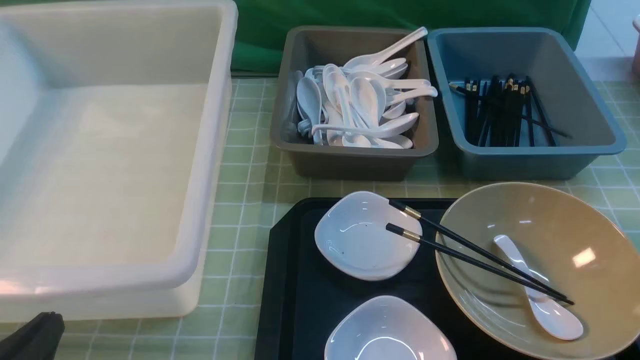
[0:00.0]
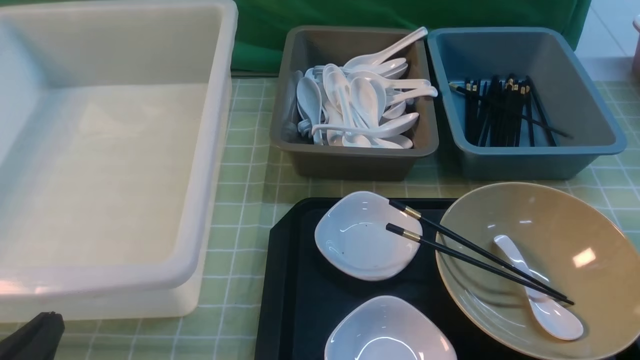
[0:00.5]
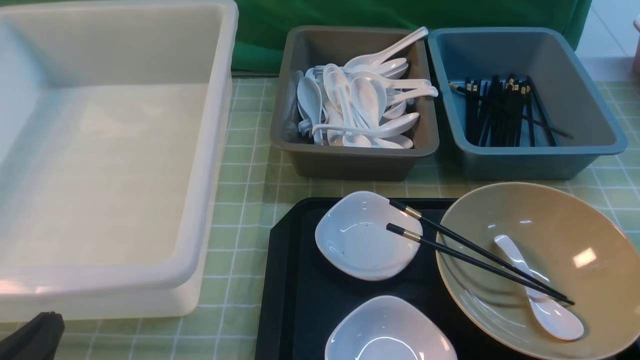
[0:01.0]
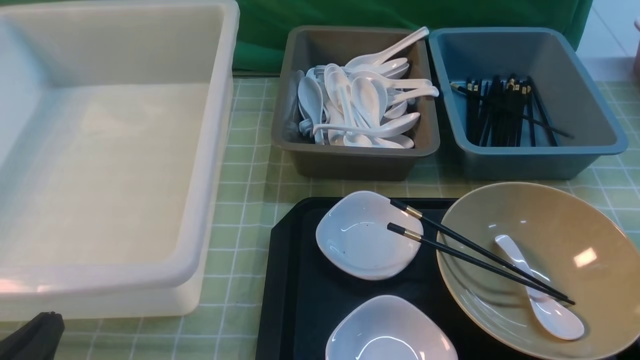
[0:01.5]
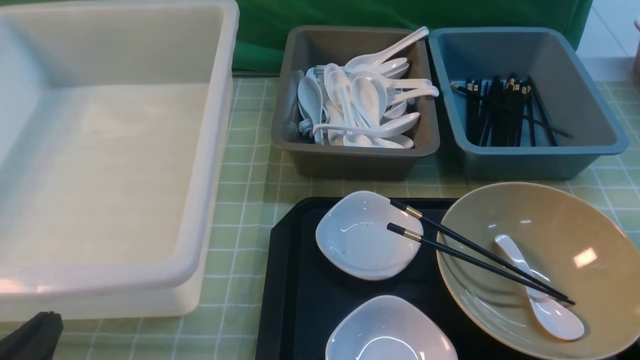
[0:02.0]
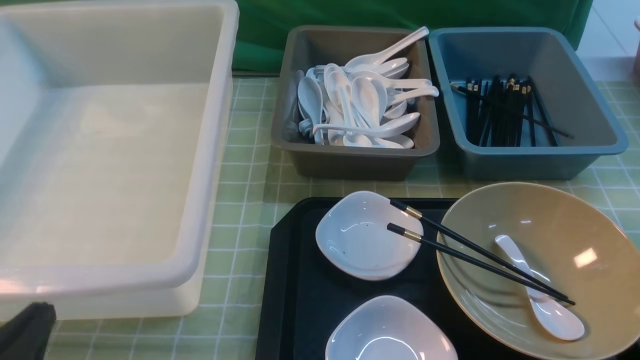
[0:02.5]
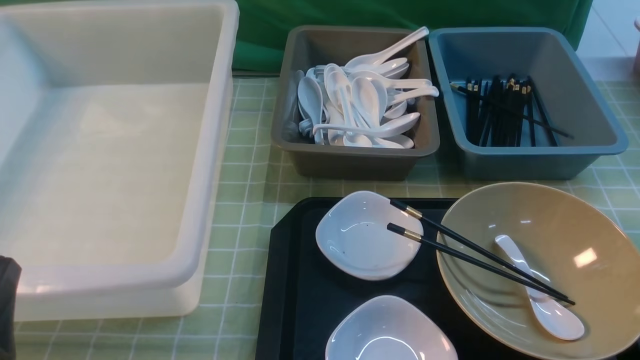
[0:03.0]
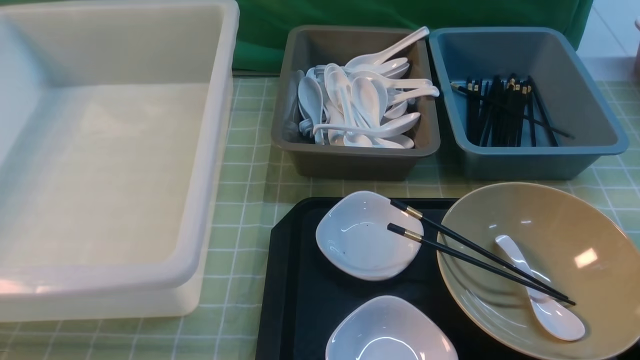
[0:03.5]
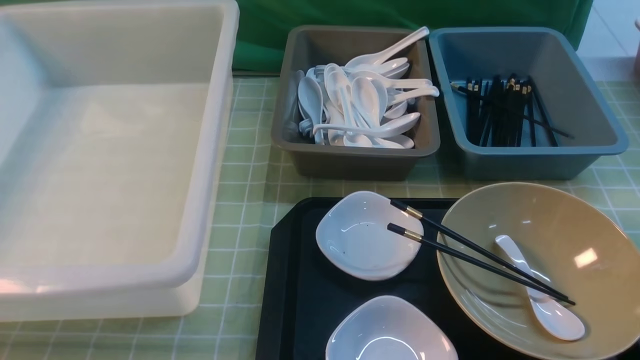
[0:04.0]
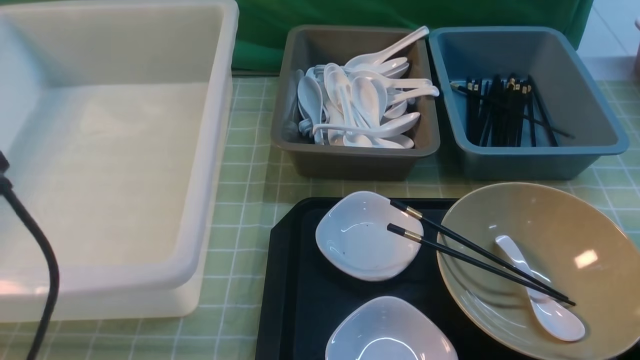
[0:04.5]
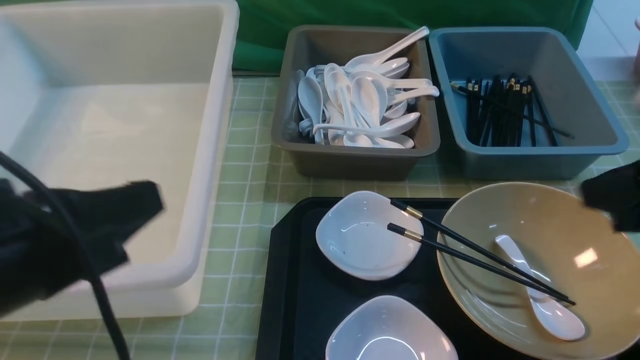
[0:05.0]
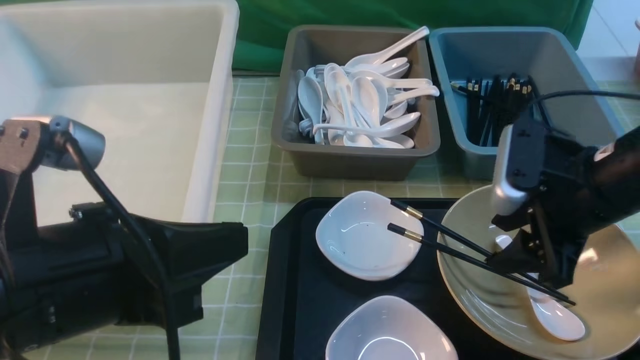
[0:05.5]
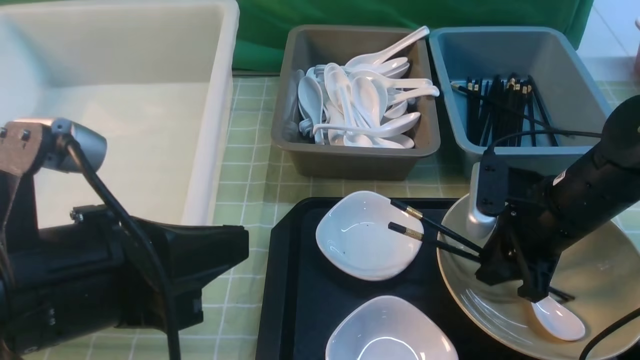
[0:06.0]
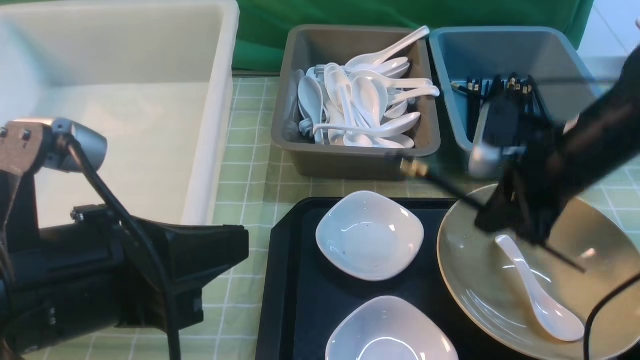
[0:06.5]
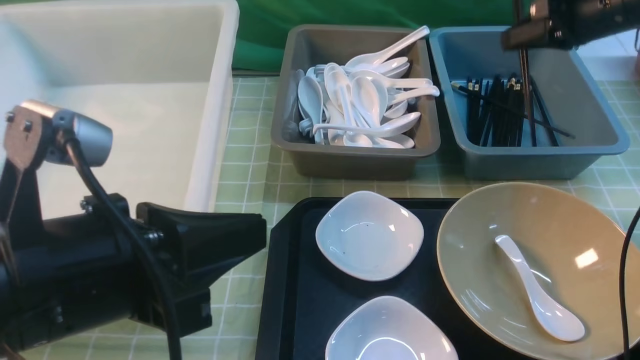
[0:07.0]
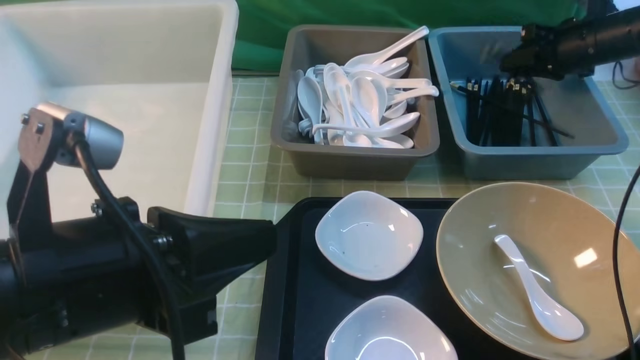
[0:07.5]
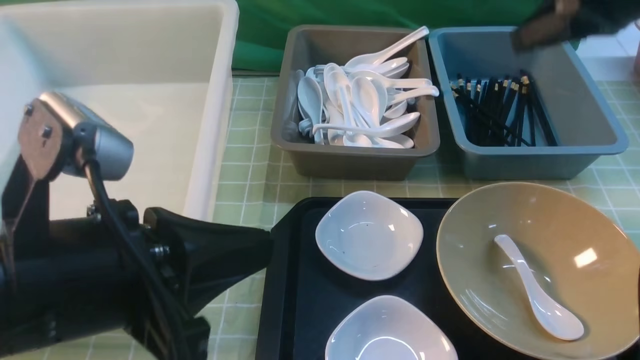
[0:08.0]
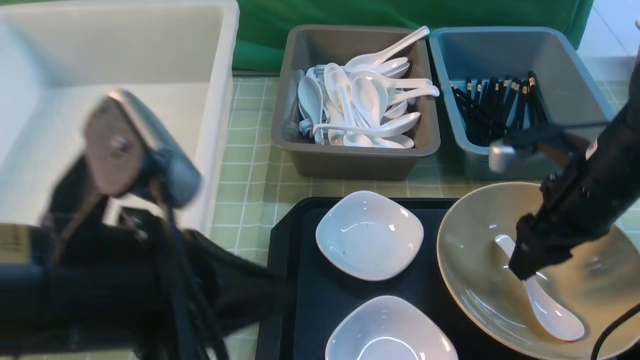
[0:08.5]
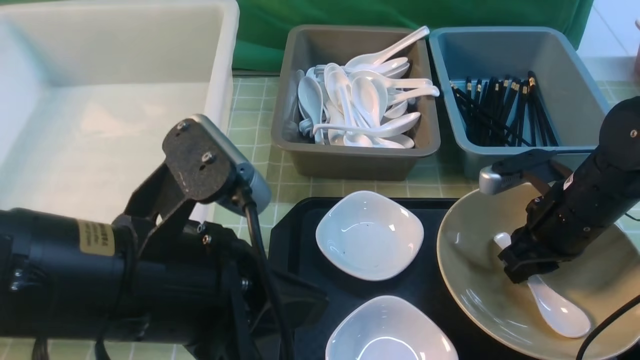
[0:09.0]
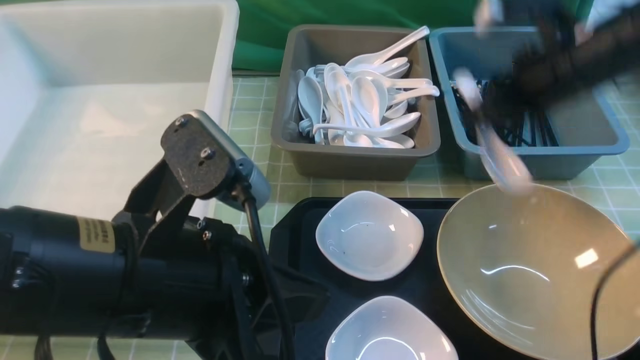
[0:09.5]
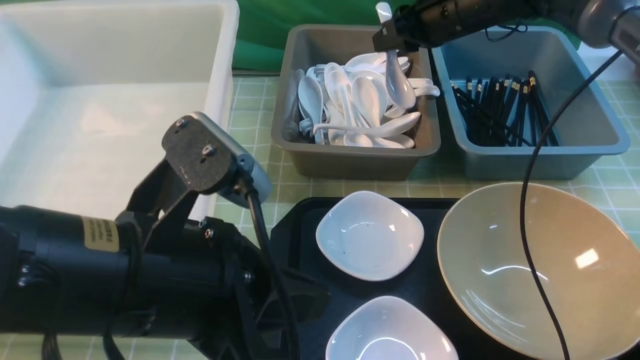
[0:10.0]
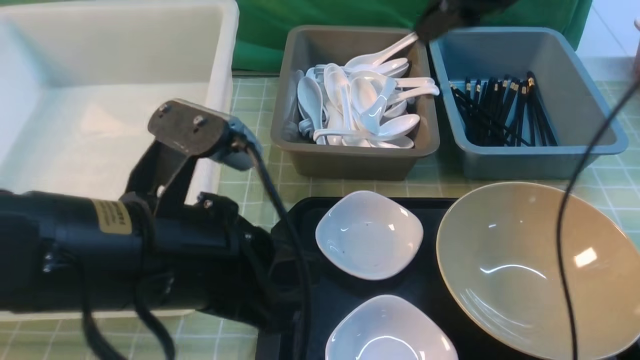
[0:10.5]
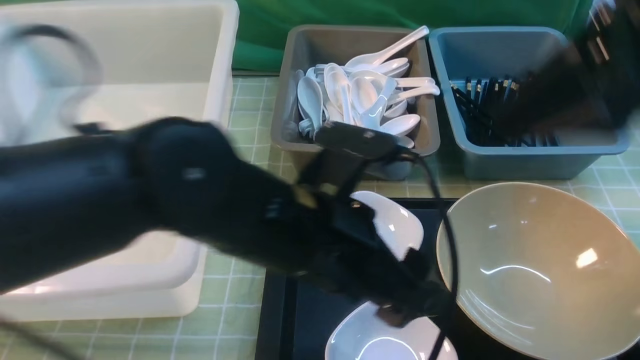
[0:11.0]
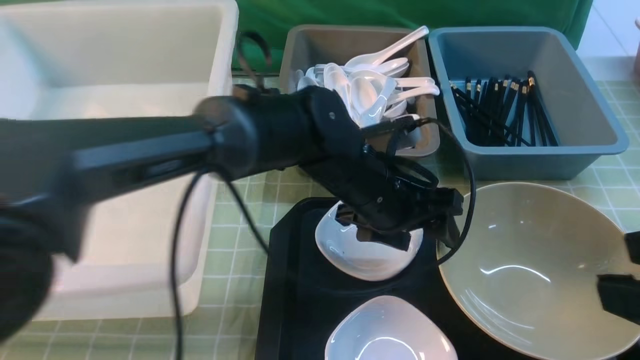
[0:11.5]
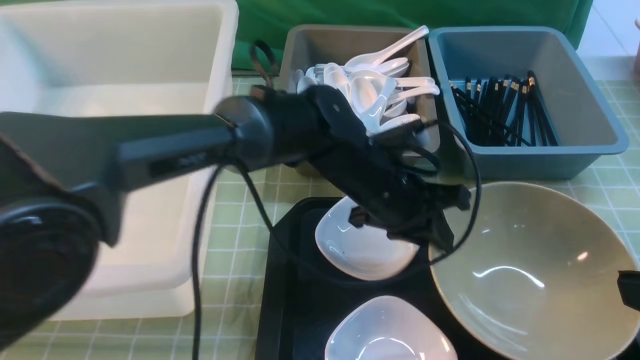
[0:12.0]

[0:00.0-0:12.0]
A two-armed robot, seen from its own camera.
Task of the whole recording: on green table put chopsticks spoon bowls plates into blue grey white boxes.
Step, 0:00.0 to 0:06.5: use the right arm to grab the chopsticks.
Step, 0:07.0 to 0:07.5: use the right arm to put the chopsticks into the small storage box on the right.
Step, 0:08.0 to 0:09.0: use the right arm to grab the soup spoon in the middle.
Step, 0:09.5 to 0:10.0: use the right arm to put the soup spoon into the small storage box in the middle.
0:00.0 to 0:02.0: Both grippers stay put.
0:02.0 to 0:04.0: The left gripper shifts about 10 cm upward.
0:04.0 to 0:06.0: The right gripper goes some 25 cm forward and downward, and opens, then closes once more. The left gripper travels to the right and forward by some 10 cm.
0:06.0 to 0:08.0: The right gripper is displaced upward, forward and to the right by approximately 20 cm, and opens.
0:08.0 to 0:10.0: The right gripper moves forward and to the left, roughly 15 cm, and closes.
0:10.0 to 0:12.0: The left gripper moves forward, to the right and downward, roughly 25 cm, and opens, then closes again, while the right gripper goes approximately 40 cm backward, and opens up.

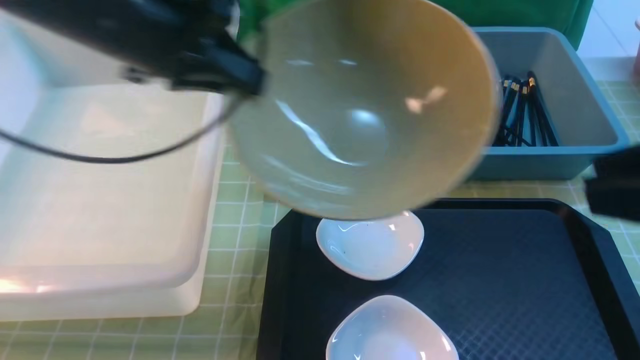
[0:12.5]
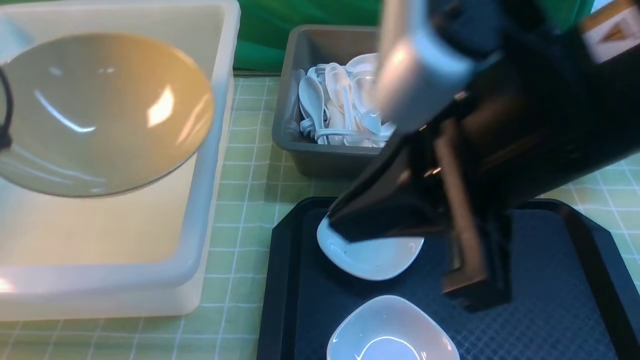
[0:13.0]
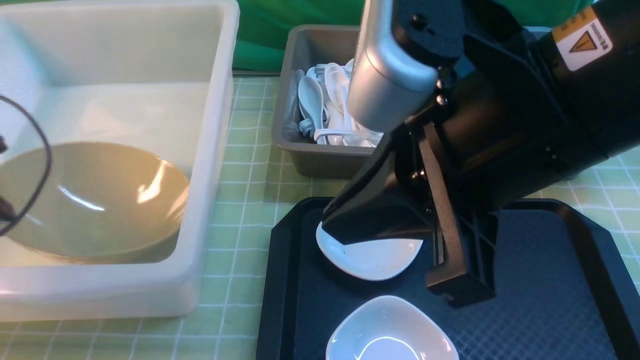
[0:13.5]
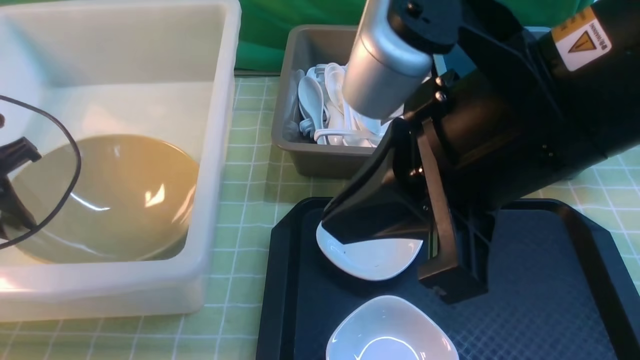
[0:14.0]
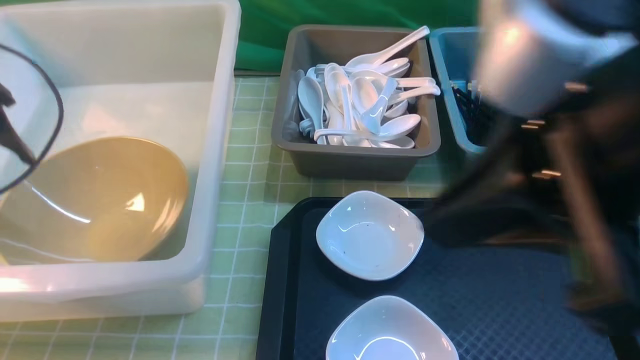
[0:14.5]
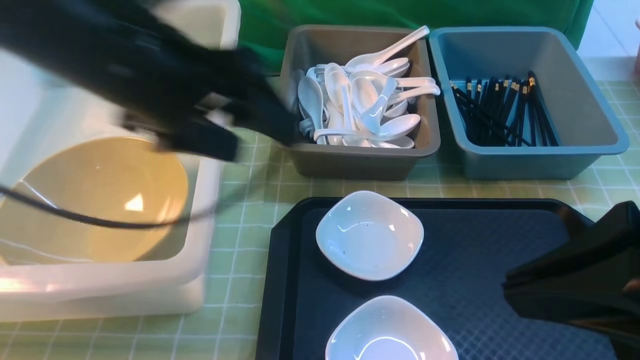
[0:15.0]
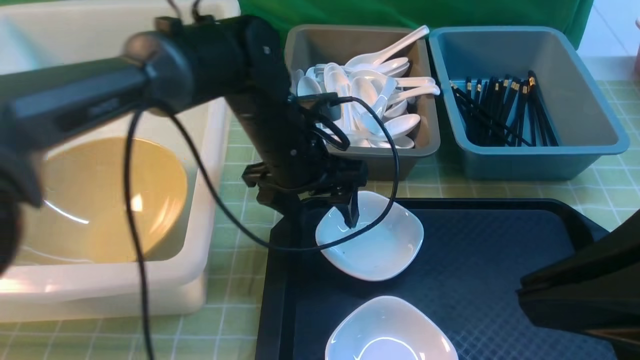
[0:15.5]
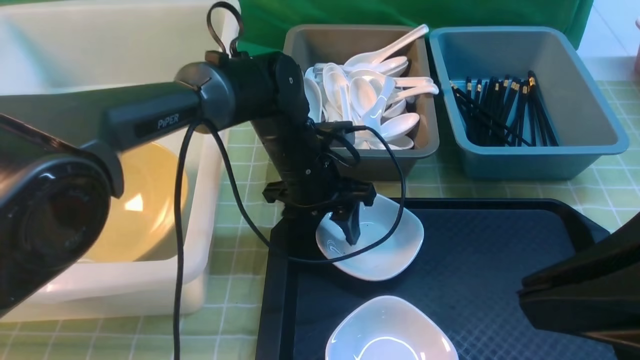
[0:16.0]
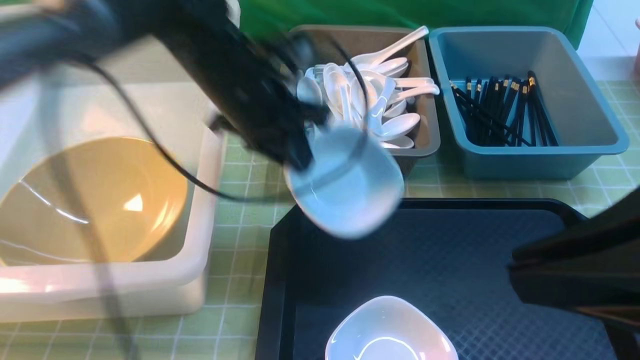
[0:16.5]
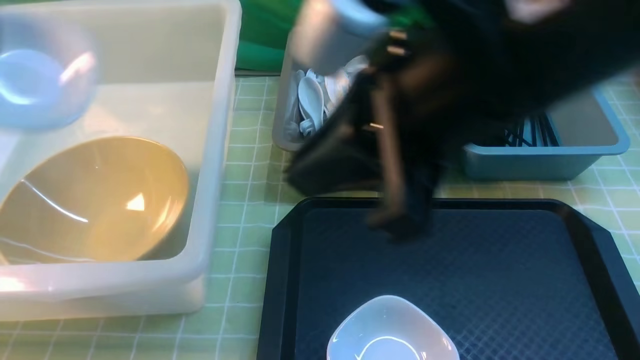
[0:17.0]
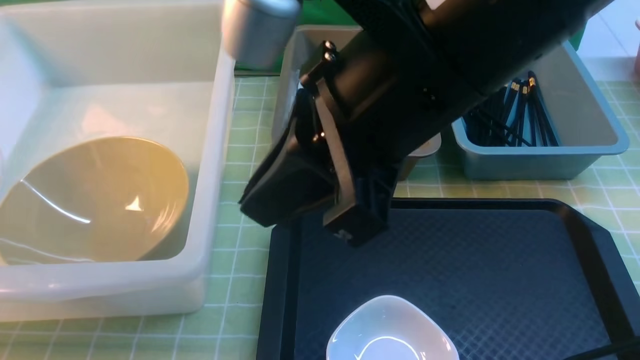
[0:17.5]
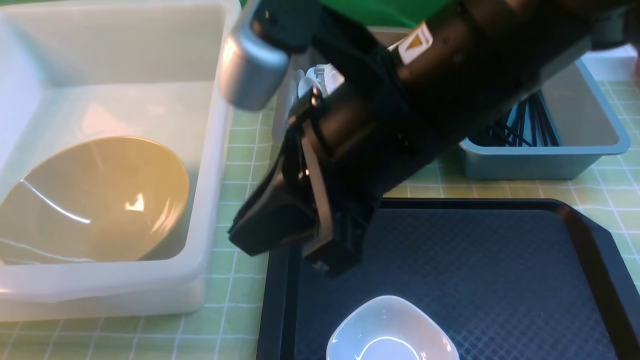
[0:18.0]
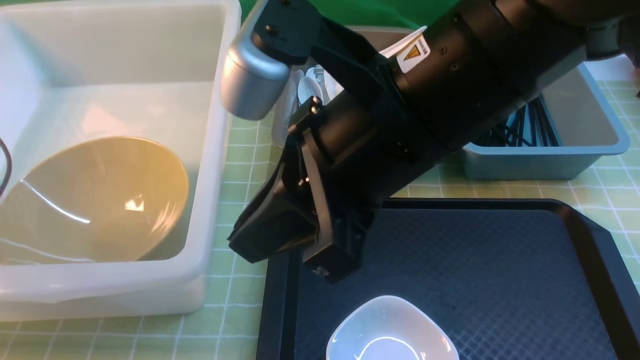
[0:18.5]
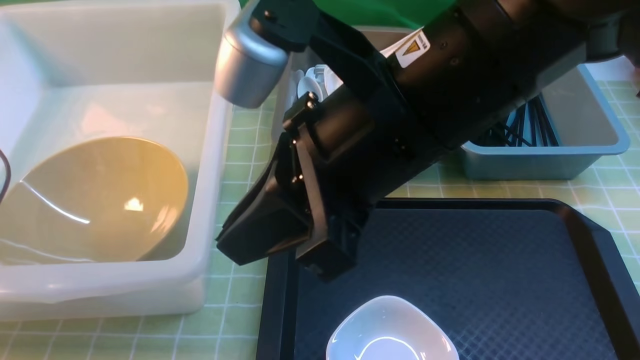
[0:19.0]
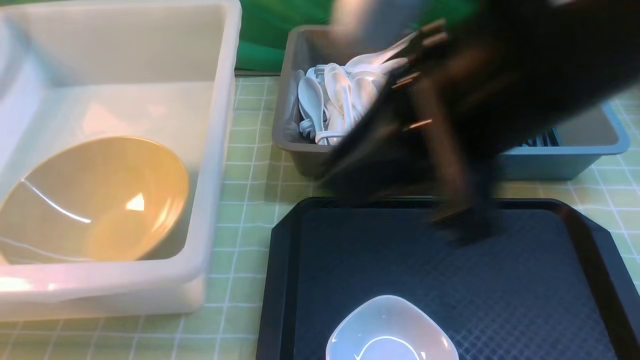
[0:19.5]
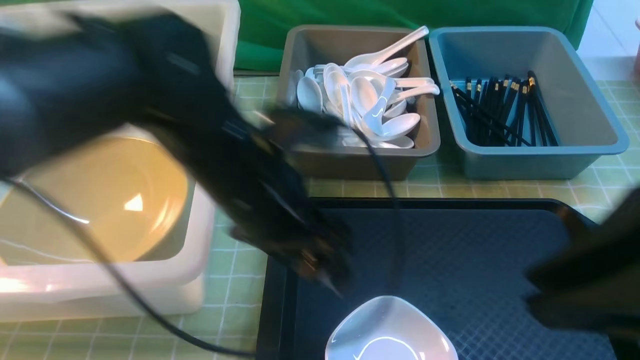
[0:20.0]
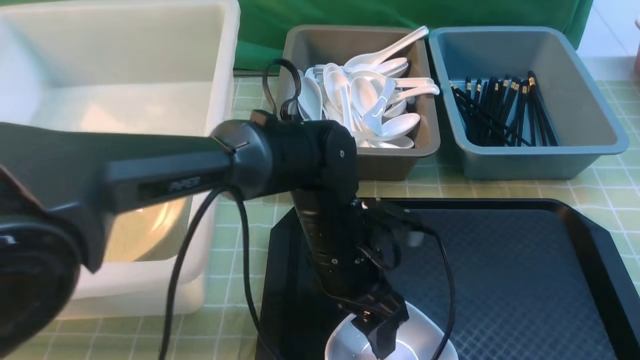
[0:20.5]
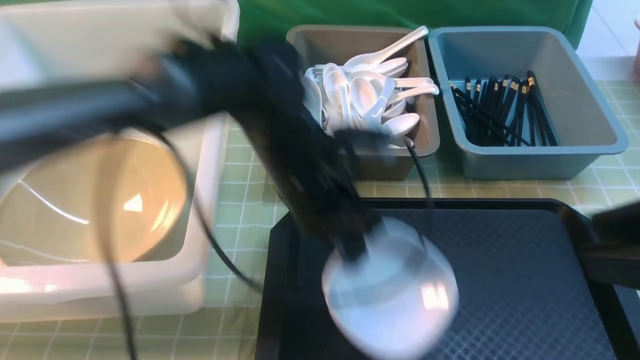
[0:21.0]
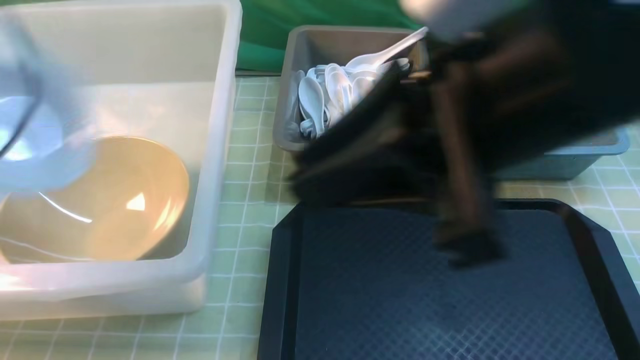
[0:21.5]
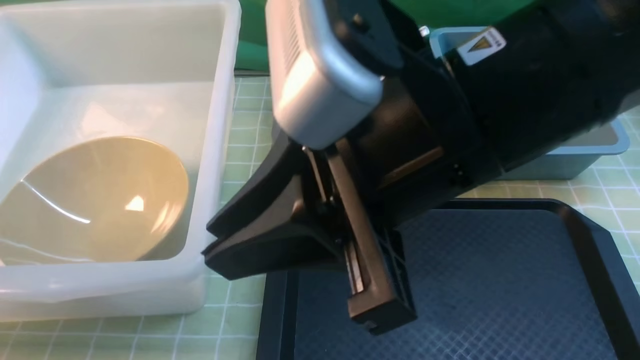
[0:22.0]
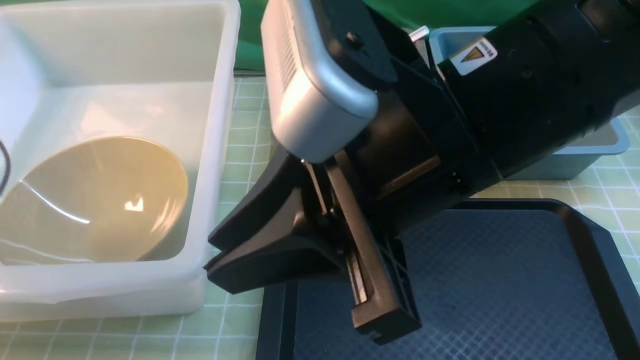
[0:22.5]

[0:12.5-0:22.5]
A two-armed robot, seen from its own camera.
Task of the whole recording: on green table put chopsticks spoon bowls plates into blue grey white boxes.
Step, 0:12.5 to 0:14.0: use the left arm to put the noodle bowl into the large storage box on the left.
Step, 0:14.5 to 0:16.0: use the left arm to grab the plate.
Step, 0:16.5 to 0:19.0: use the left arm to put the plate into the large storage box on the left.
Step, 0:19.5 to 0:21.0: use the left arm to grab the plate.
0:12.5 to 0:14.5: The right gripper shifts roughly 10 cm to the left. Meanwhile the left gripper moves to the left, some 15 cm, and opens its fingers.
0:14.5 to 0:16.5: The left gripper goes roughly 20 cm to the right, and closes. The right gripper changes place by about 5 cm.
0:16.5 to 0:18.5: The right gripper shifts about 15 cm to the left and forward. Meanwhile the left gripper heads to the left, covering roughly 30 cm.
0:18.5 to 0:20.5: The left gripper heads to the right, covering some 40 cm, and opens. Meanwhile the right gripper shifts approximately 25 cm to the right and backward.
0:20.5 to 0:22.5: The left gripper moves to the left, approximately 40 cm, and closes its fingers. Meanwhile the right gripper moves to the left and forward, some 20 cm.
